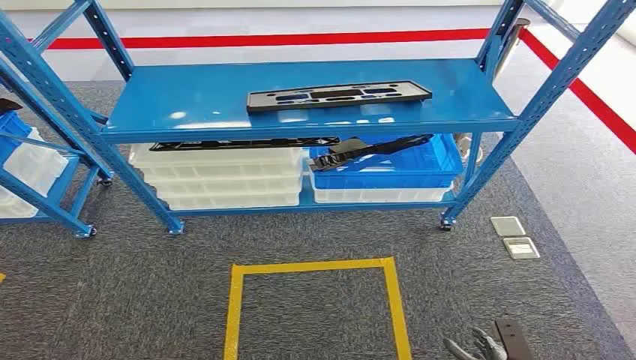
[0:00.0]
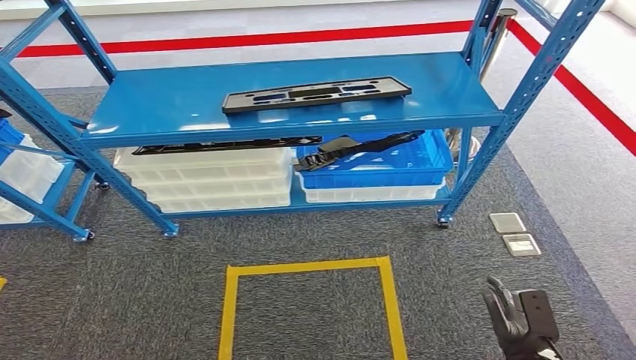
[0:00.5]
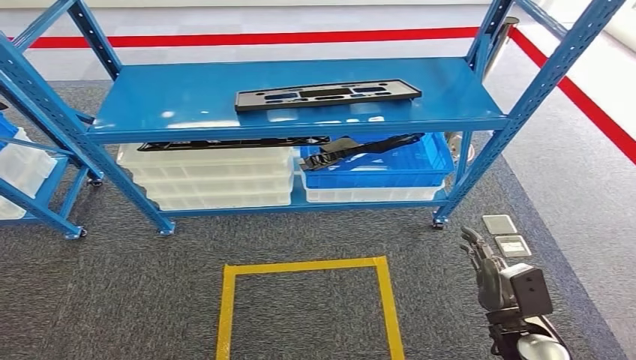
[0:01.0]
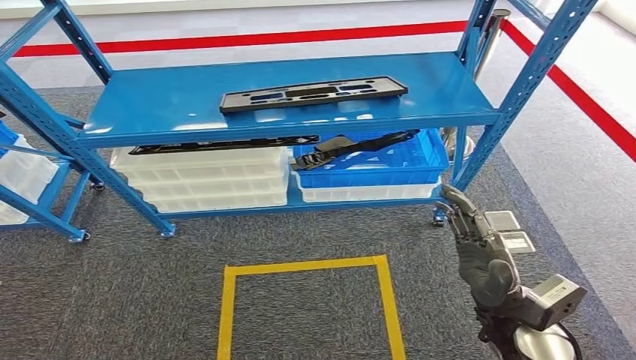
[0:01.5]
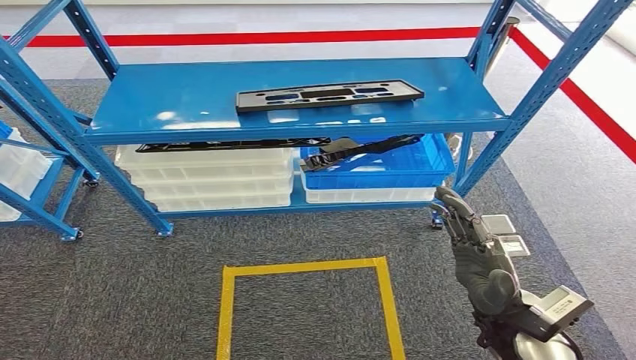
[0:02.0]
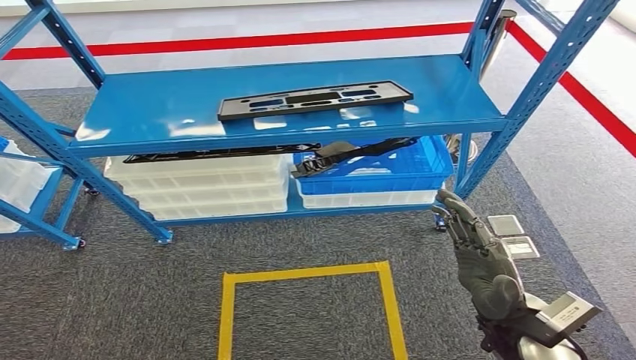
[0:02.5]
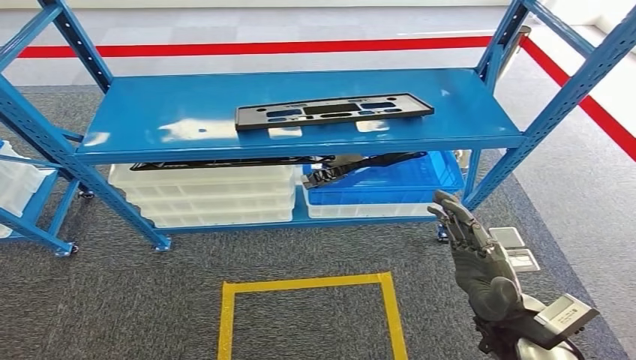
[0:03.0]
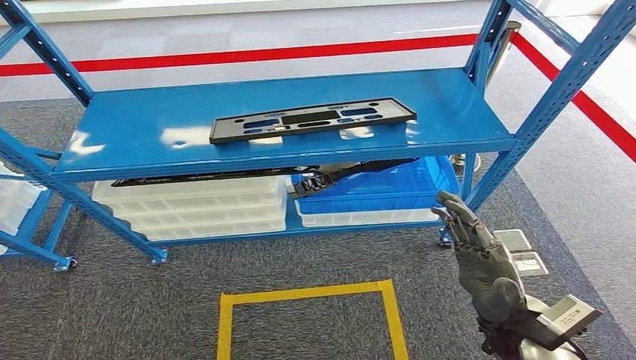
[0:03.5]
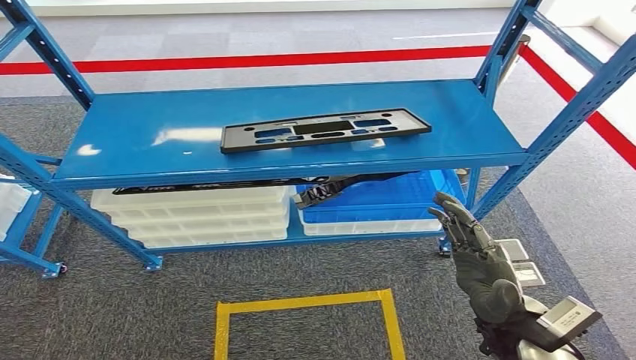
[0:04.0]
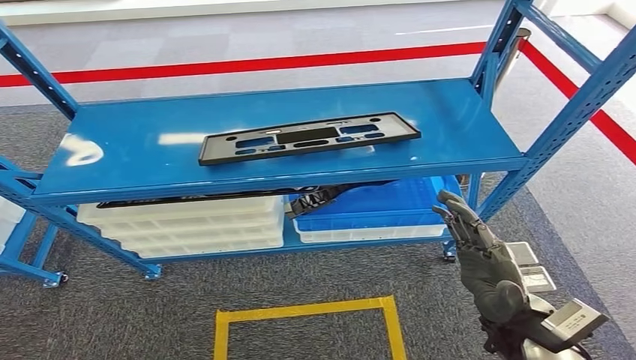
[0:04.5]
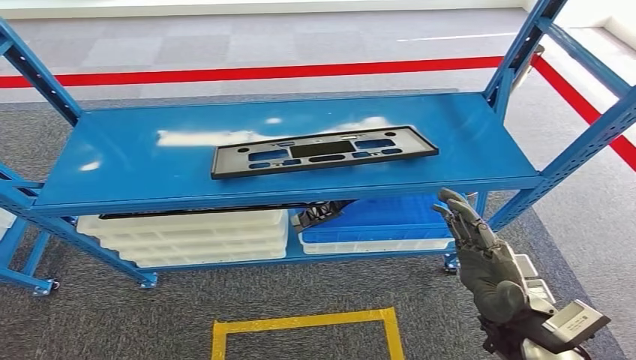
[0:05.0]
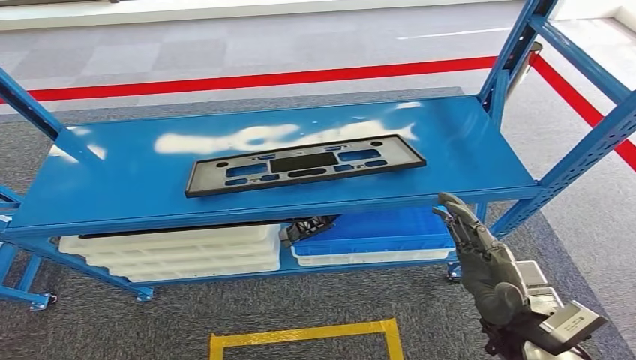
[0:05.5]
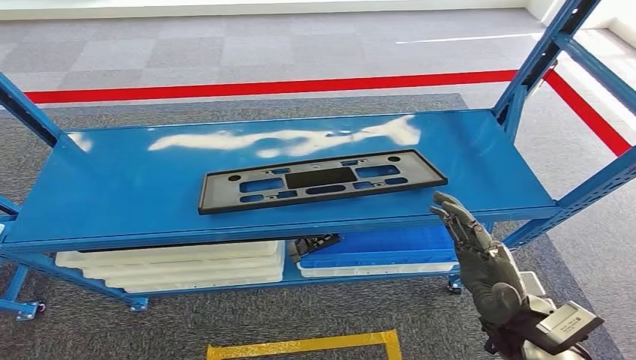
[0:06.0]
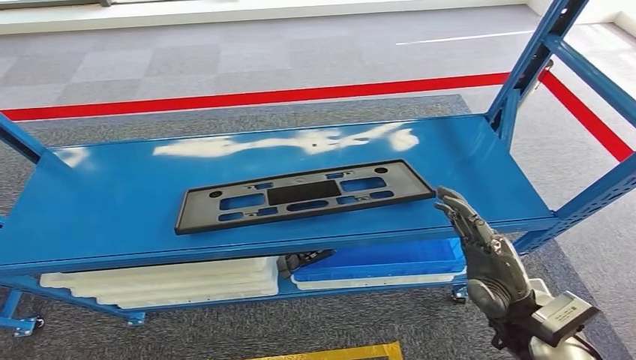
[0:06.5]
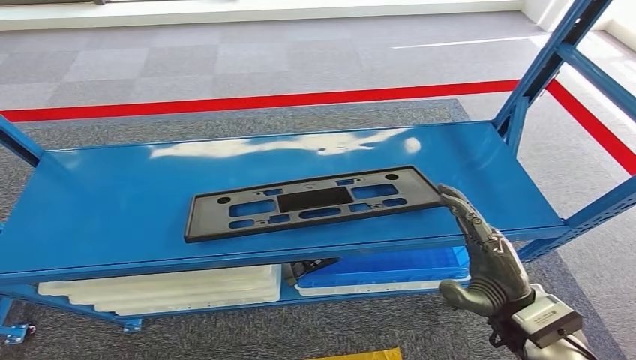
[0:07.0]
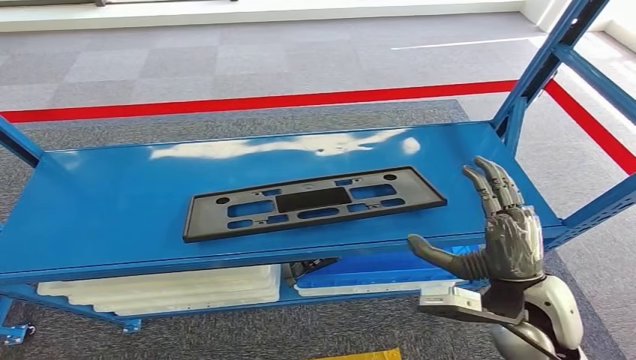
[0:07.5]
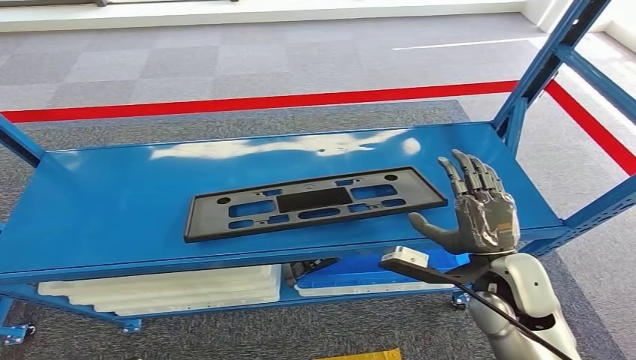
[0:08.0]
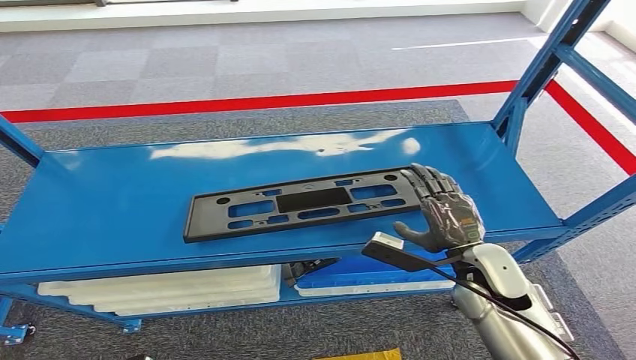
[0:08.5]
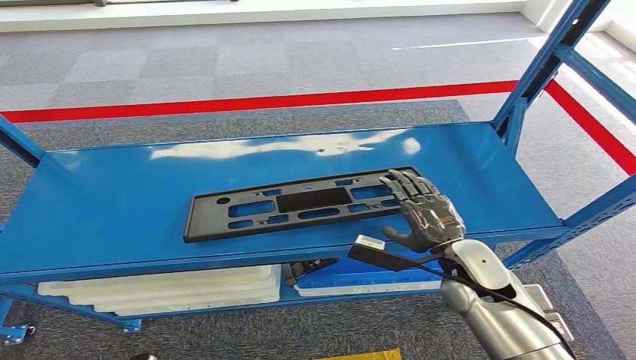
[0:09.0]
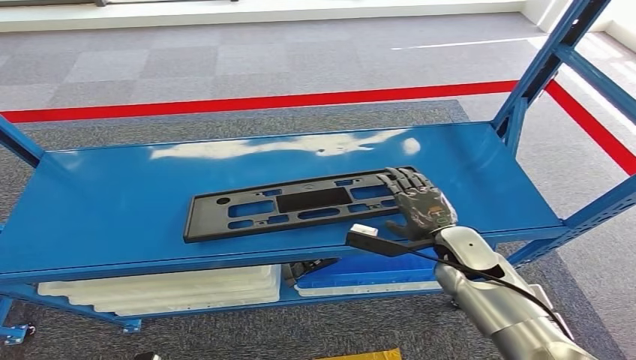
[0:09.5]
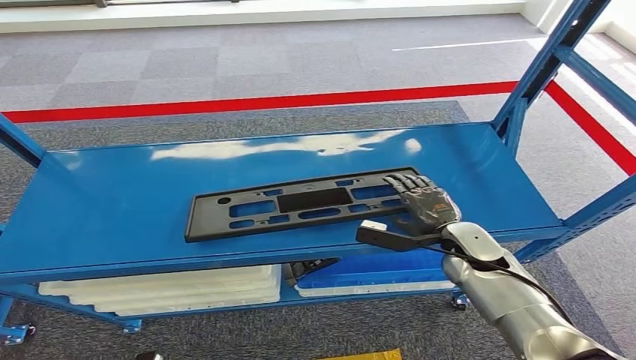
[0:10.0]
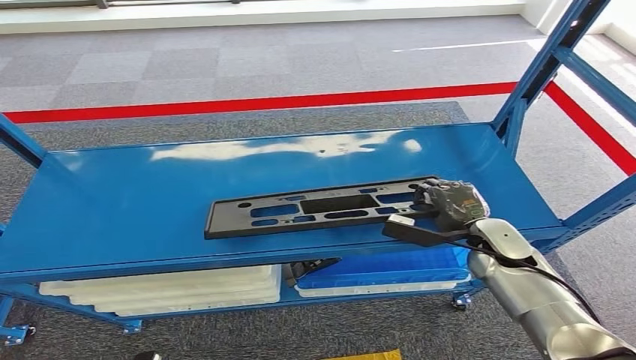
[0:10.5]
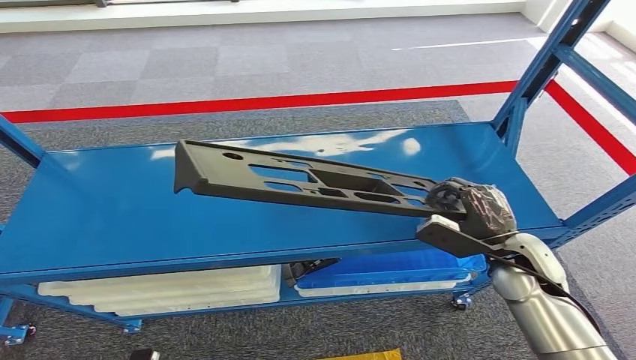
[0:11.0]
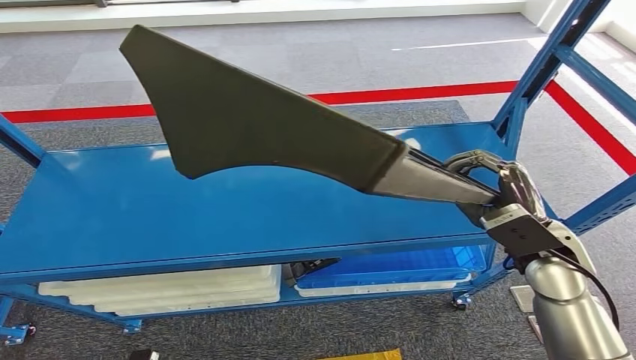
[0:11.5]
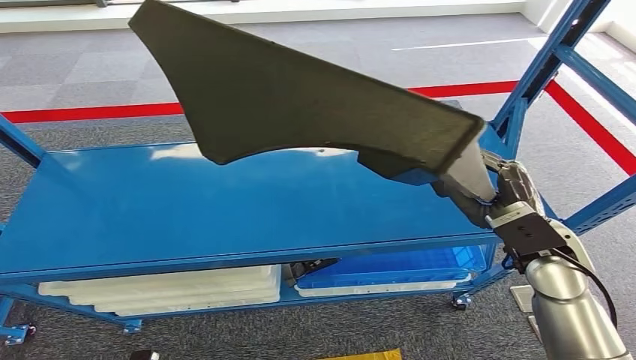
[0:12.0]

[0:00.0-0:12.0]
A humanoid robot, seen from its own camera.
Step, 0:00.0 to 0:11.0: Pick up the small component from the shelf.
0:08.0 to 0:10.0: The right hand moves forward and downward, approximately 10 cm.

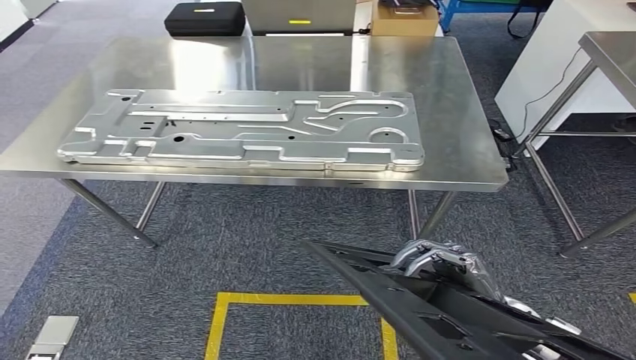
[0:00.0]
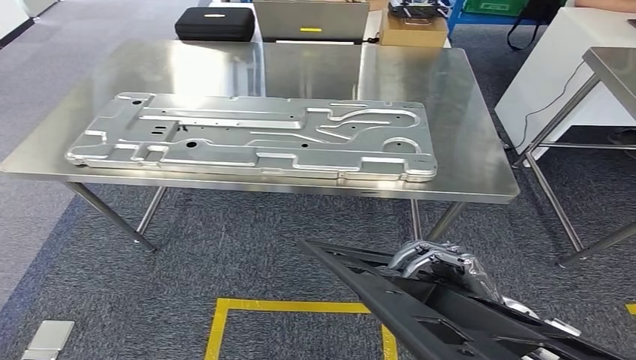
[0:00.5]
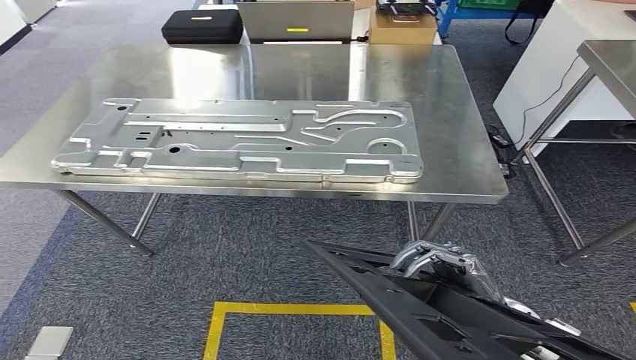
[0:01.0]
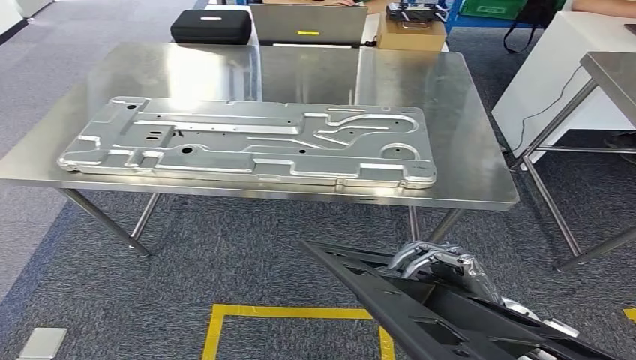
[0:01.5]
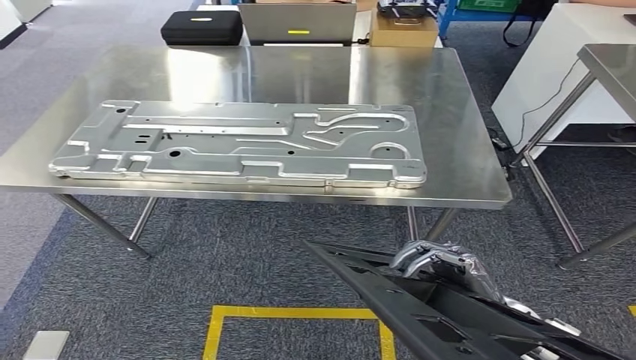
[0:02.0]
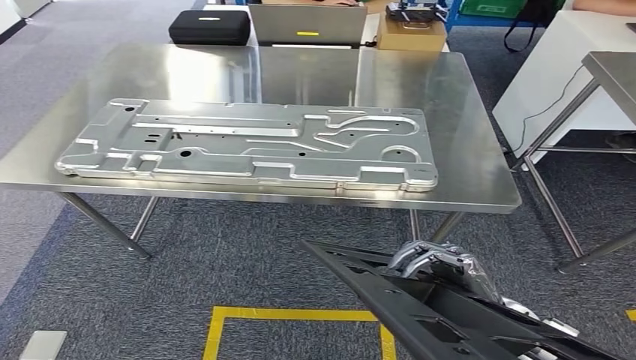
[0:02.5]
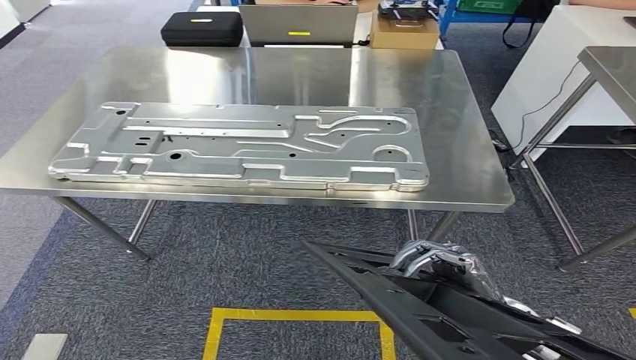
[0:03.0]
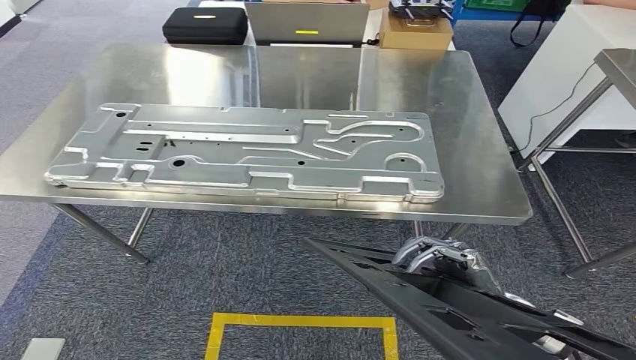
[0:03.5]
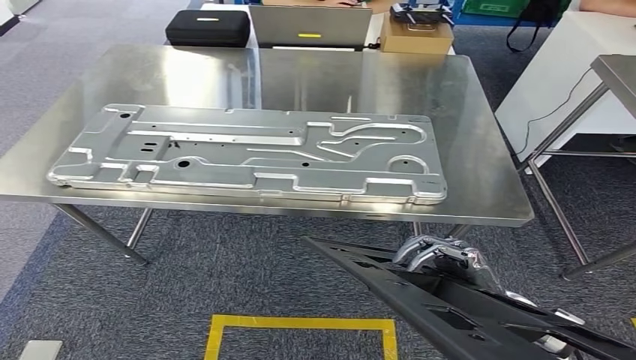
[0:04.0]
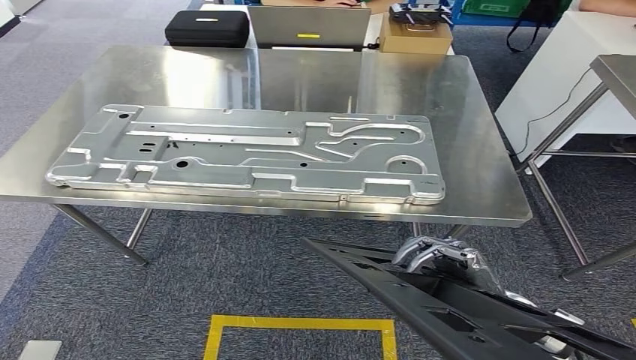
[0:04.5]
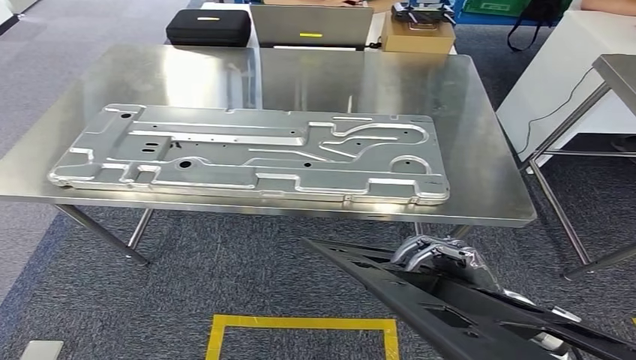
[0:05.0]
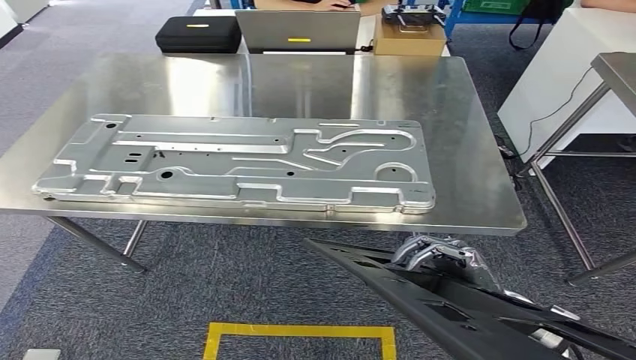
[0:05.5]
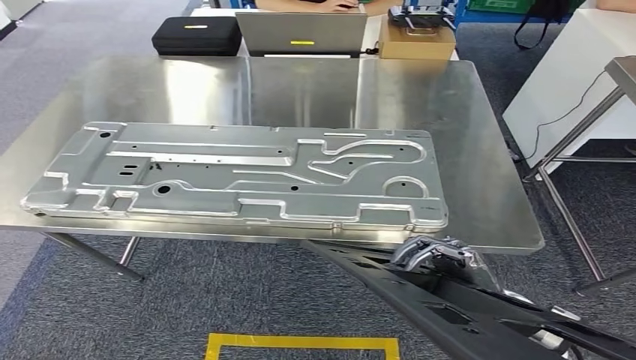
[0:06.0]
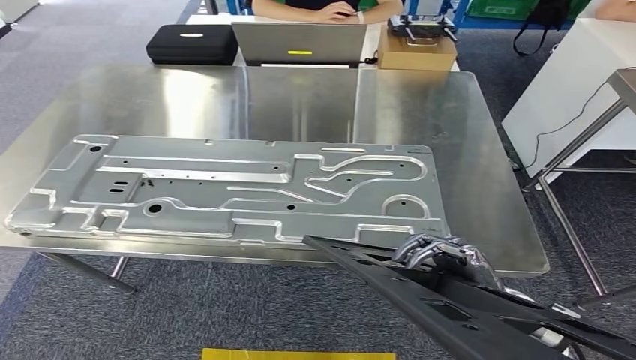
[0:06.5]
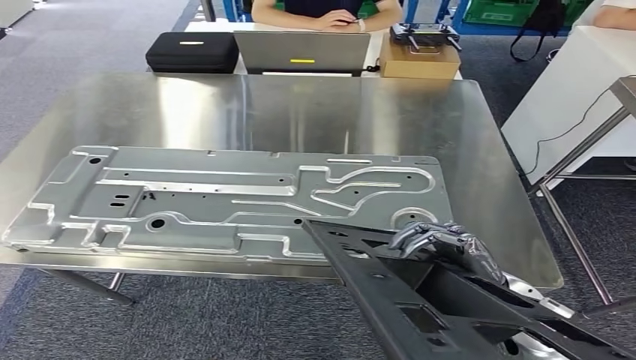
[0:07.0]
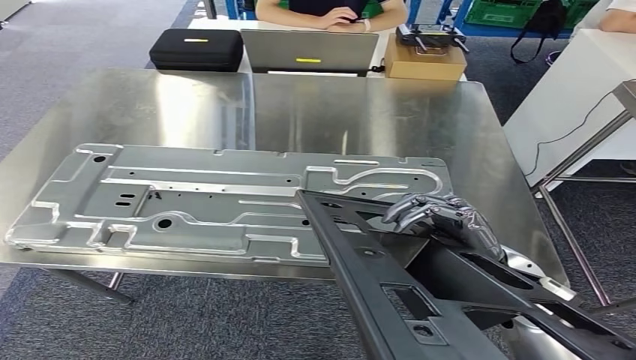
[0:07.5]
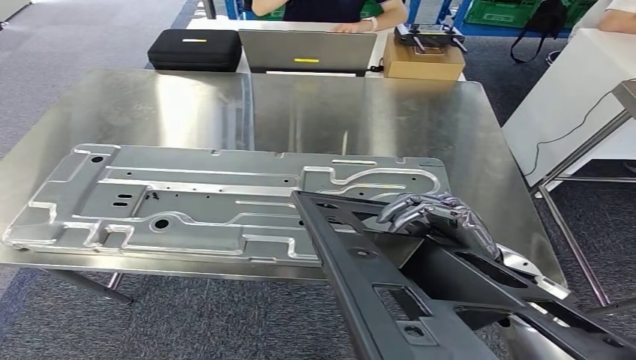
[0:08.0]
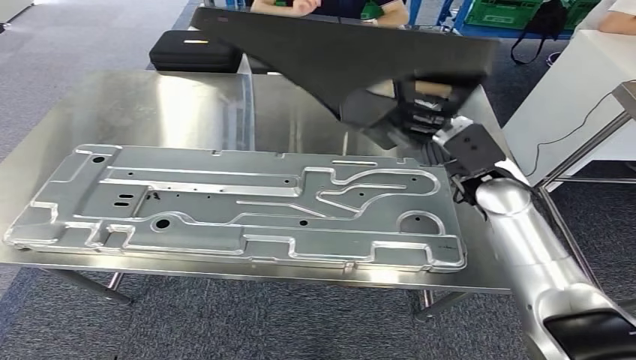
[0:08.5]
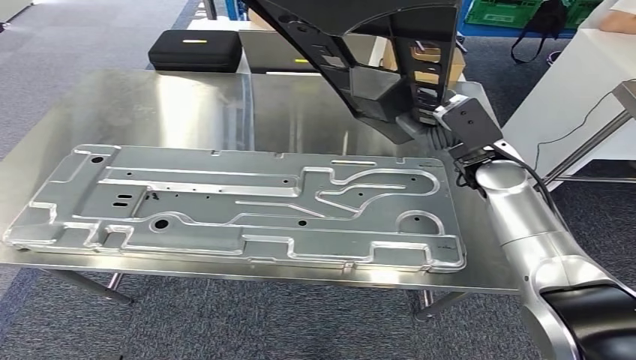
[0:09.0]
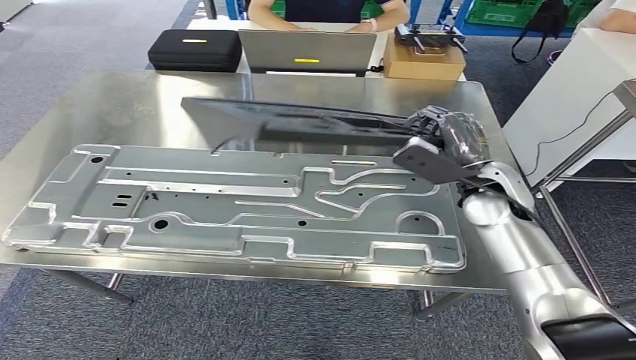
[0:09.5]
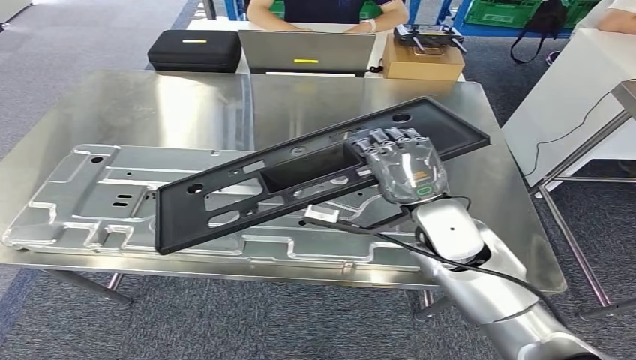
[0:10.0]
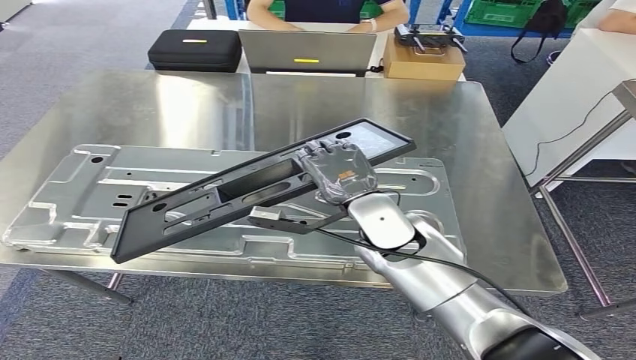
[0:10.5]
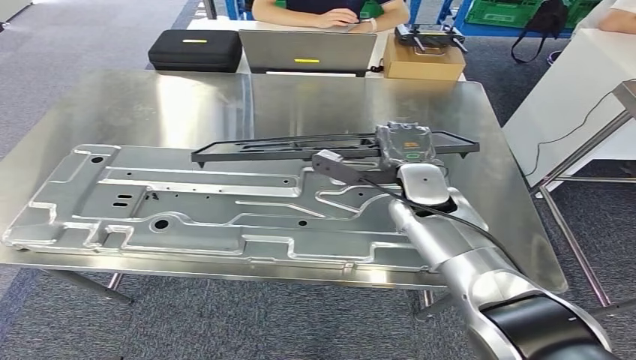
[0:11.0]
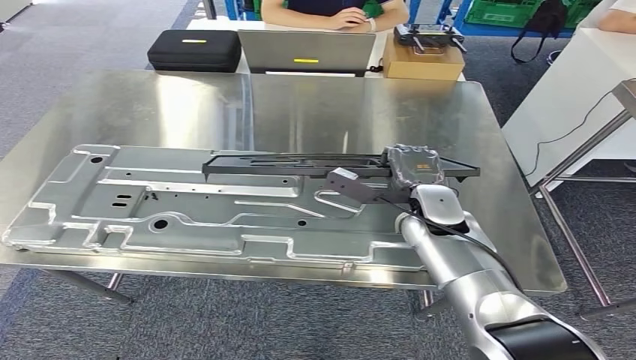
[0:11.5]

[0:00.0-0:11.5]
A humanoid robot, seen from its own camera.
Step, 0:00.0 to 0:08.0: Move the small component to the workbench.
